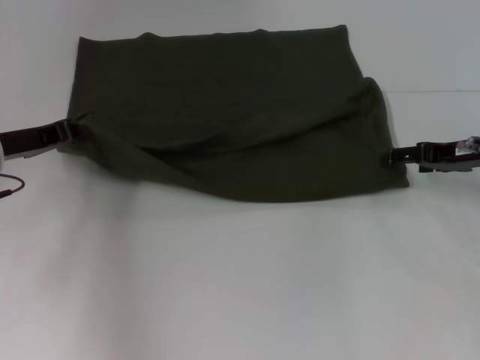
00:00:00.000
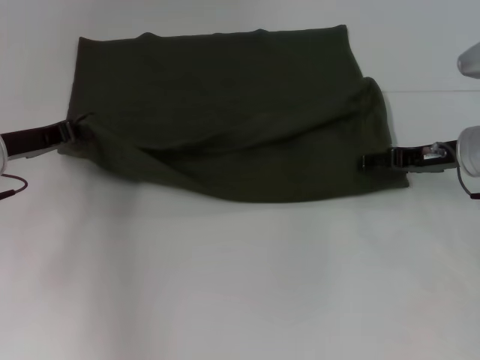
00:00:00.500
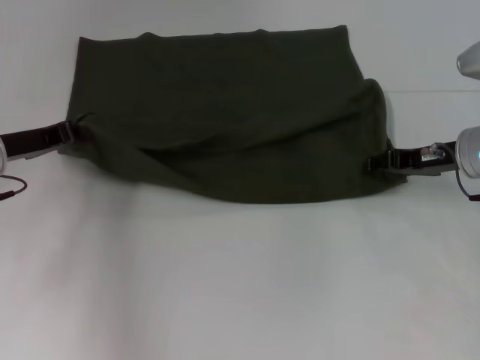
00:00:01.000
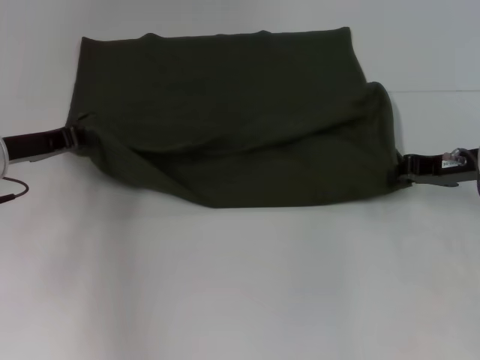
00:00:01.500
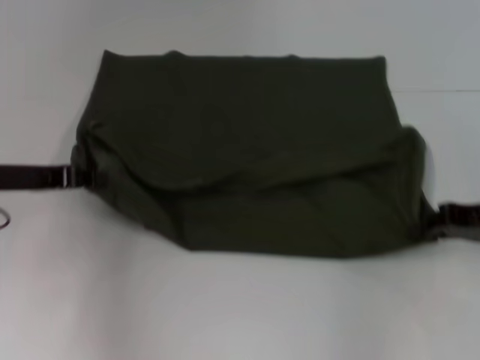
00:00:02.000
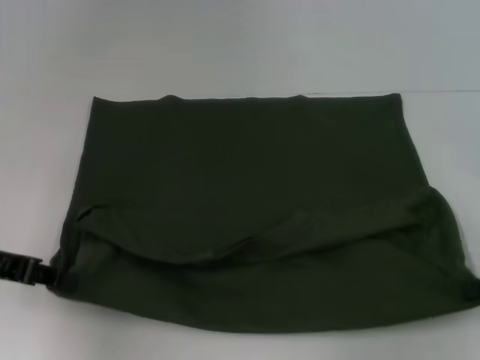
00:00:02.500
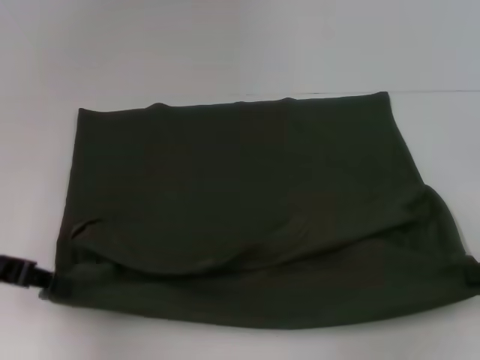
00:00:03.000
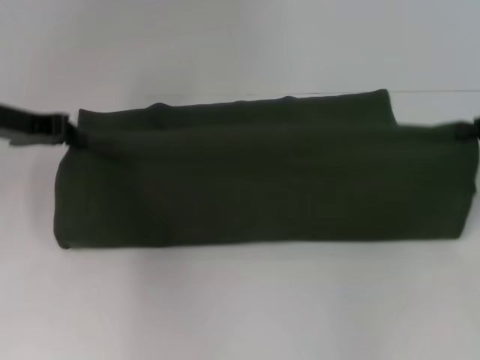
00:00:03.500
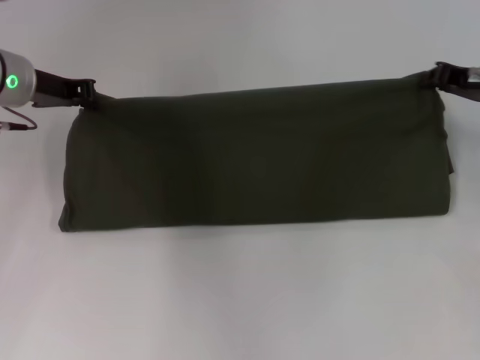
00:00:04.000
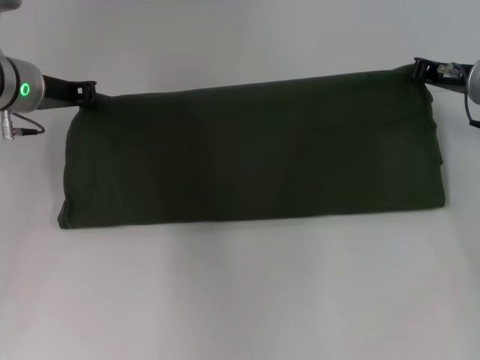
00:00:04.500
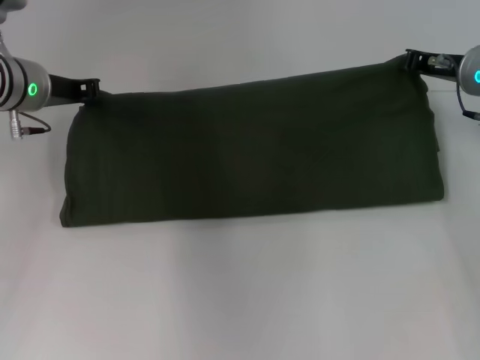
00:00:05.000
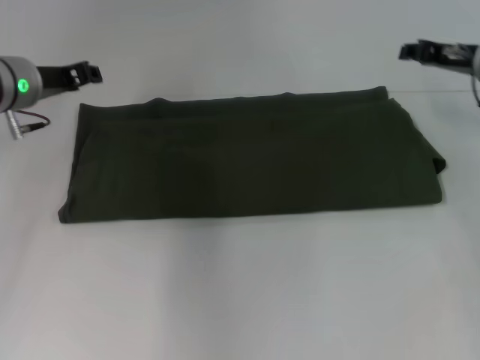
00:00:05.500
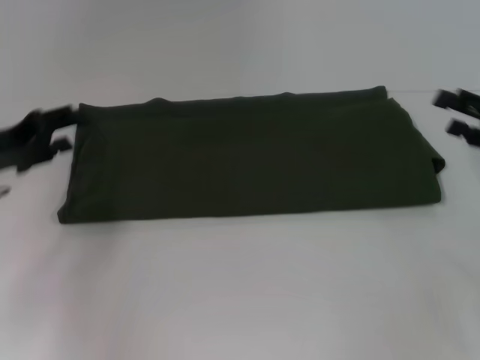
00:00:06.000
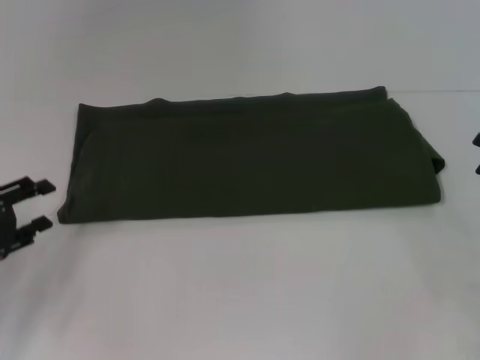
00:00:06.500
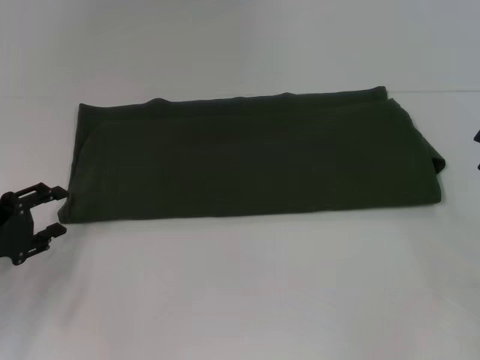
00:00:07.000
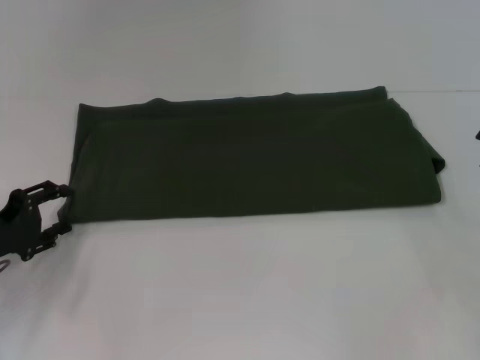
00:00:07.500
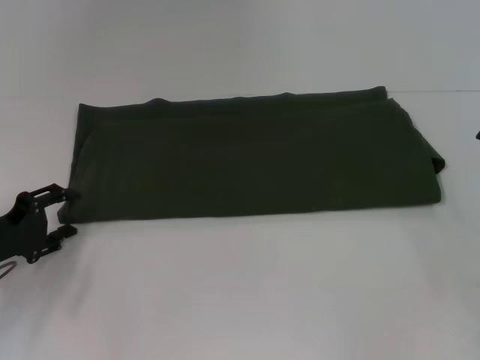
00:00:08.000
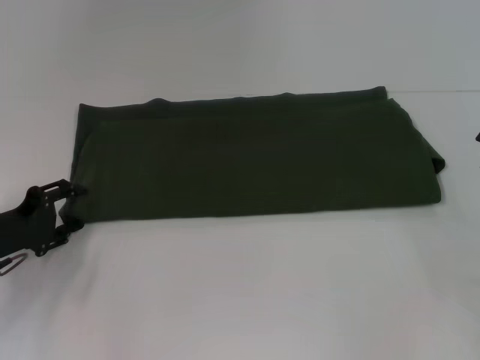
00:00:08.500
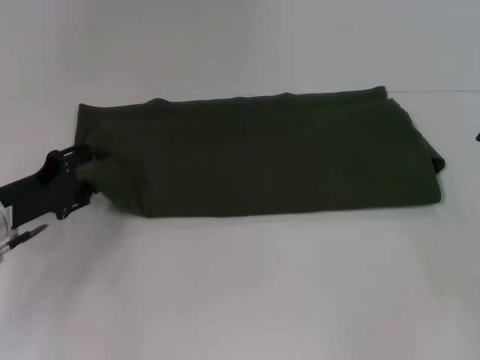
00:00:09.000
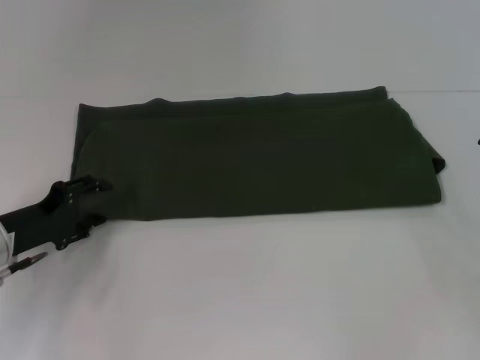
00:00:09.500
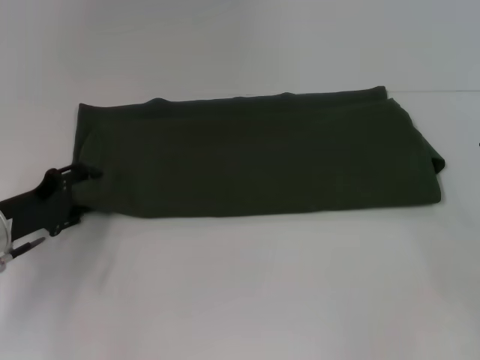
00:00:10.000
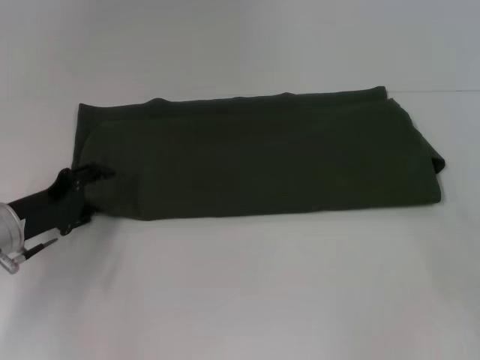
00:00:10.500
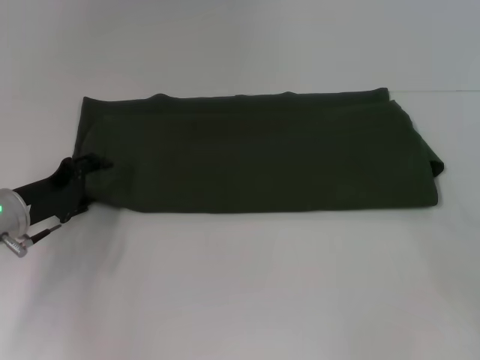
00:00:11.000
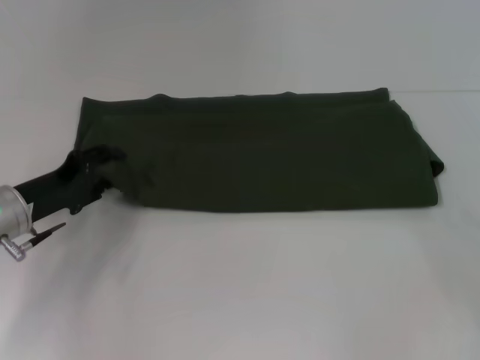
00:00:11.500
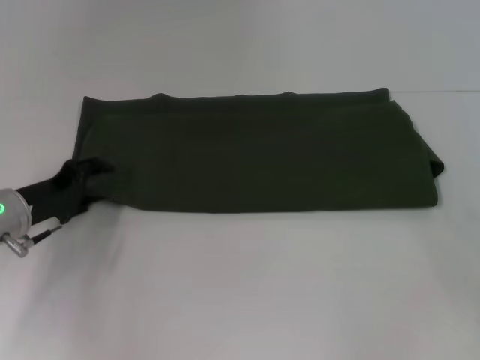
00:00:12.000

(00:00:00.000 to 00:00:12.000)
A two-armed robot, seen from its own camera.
Step, 00:00:00.000 - 00:00:02.500: Pull the clothes with your left hand.
Step, 00:00:00.000 - 00:00:02.500: Pull the clothes with your right hand.
Step, 00:00:03.000 - 00:00:05.000: Fold the clothes with your right hand.
00:00:00.000 - 00:00:02.000: The right gripper travels backward by some 5 cm, and closes its fingers.
00:00:02.000 - 00:00:04.000: The grippers both shift forward by approximately 10 cm.
00:00:04.000 - 00:00:06.000: The right gripper goes approximately 10 cm backward and to the right, and opens up. The left gripper is displaced backward, to the left and downward by approximately 15 cm, and opens its fingers.
00:00:06.000 - 00:00:08.000: The right gripper ends up about 5 cm from where it was; the left gripper shifts some 10 cm downward.
00:00:08.000 - 00:00:10.000: The grippers stay close to where they were, moving slightly.
00:00:10.000 - 00:00:12.000: The grippers stay close to where they were, moving slightly.

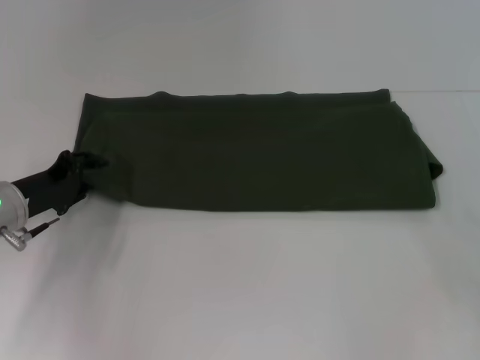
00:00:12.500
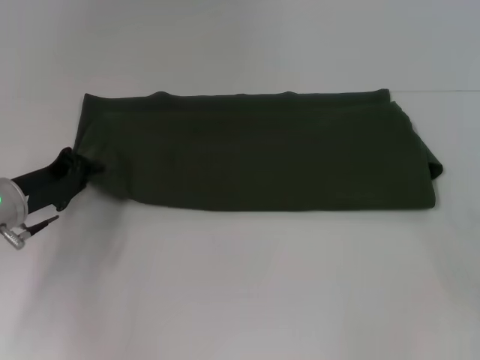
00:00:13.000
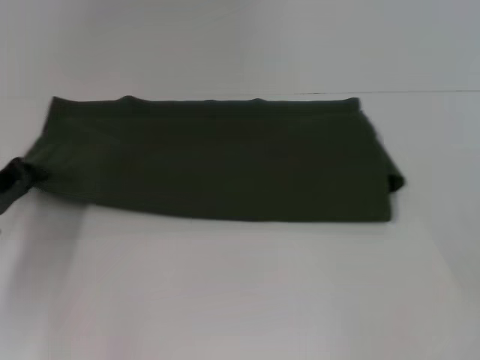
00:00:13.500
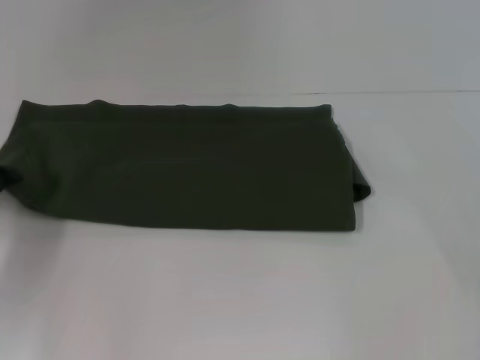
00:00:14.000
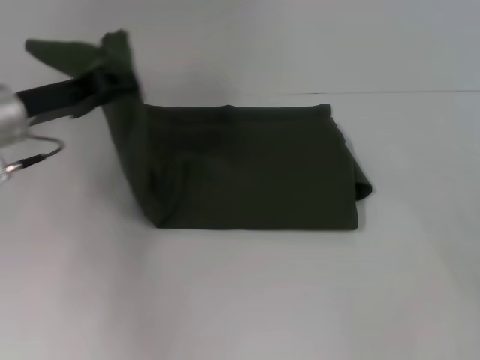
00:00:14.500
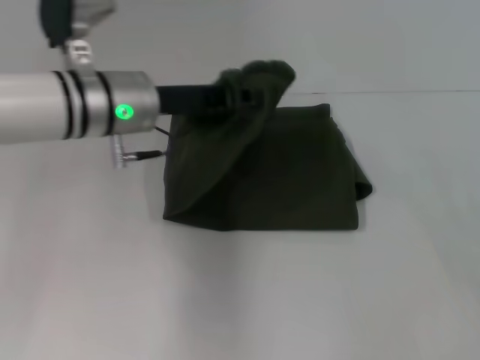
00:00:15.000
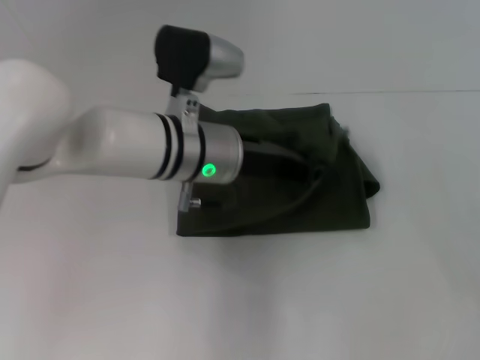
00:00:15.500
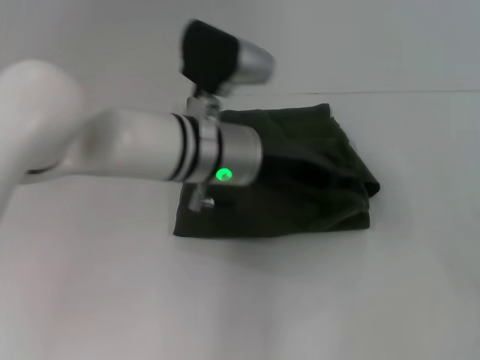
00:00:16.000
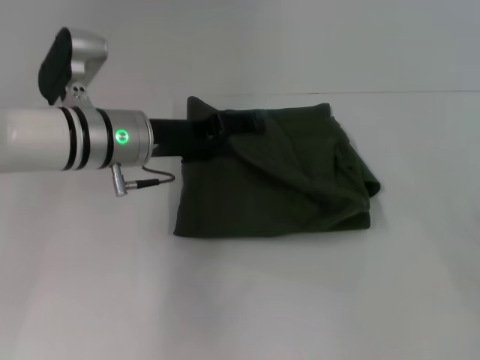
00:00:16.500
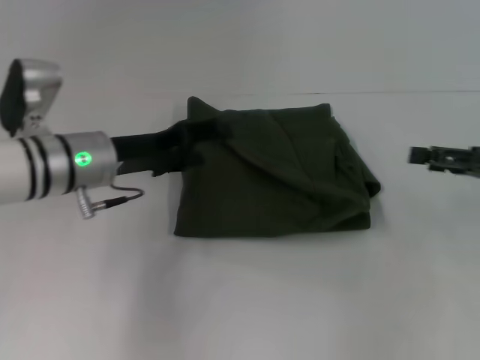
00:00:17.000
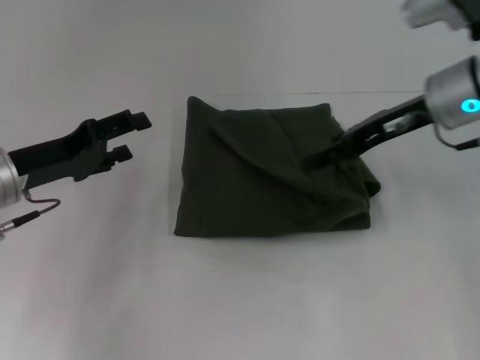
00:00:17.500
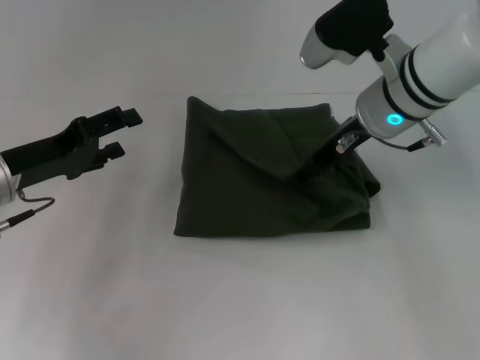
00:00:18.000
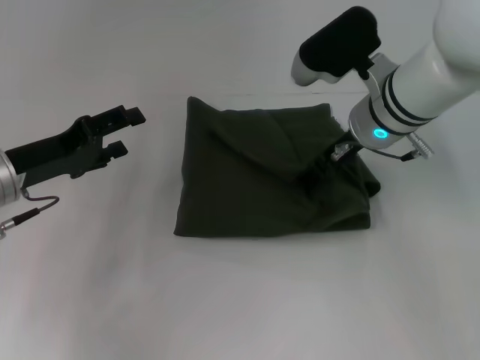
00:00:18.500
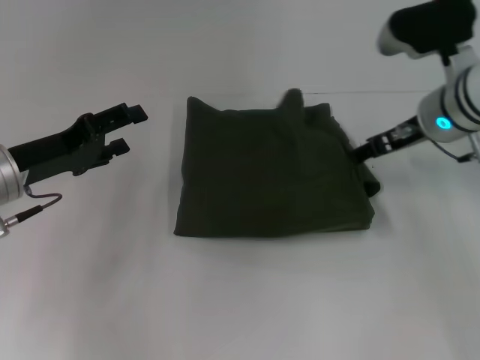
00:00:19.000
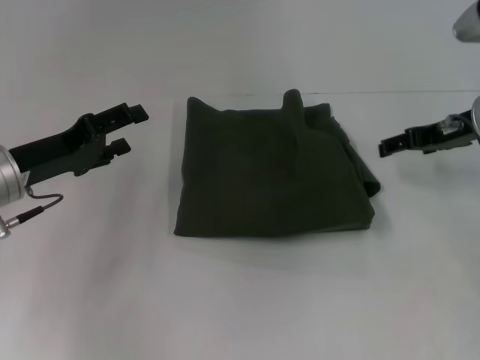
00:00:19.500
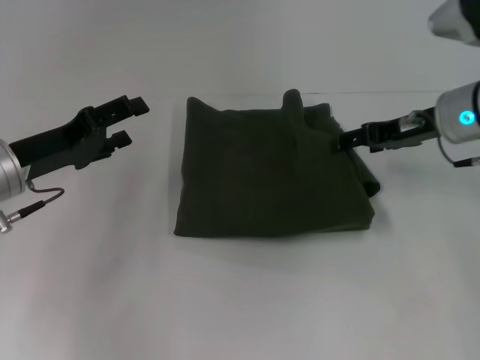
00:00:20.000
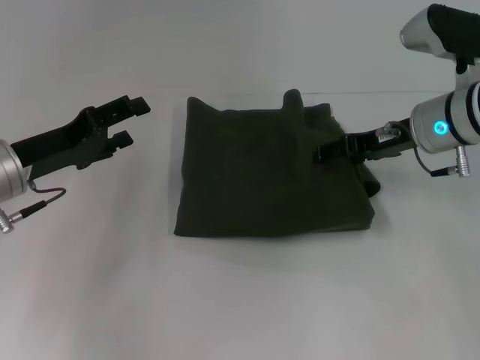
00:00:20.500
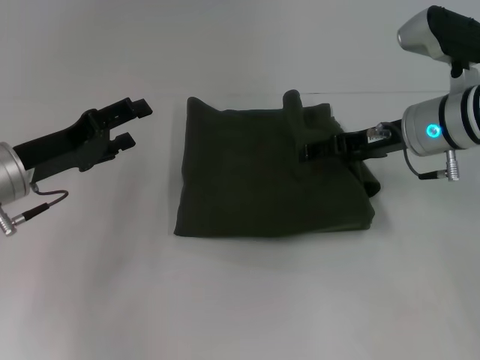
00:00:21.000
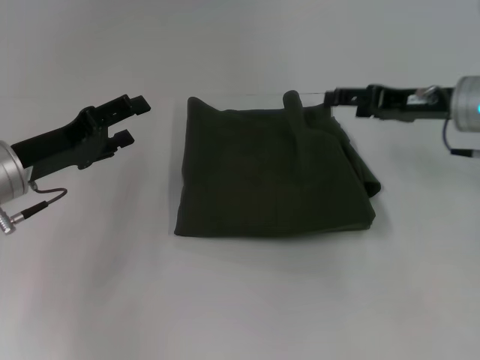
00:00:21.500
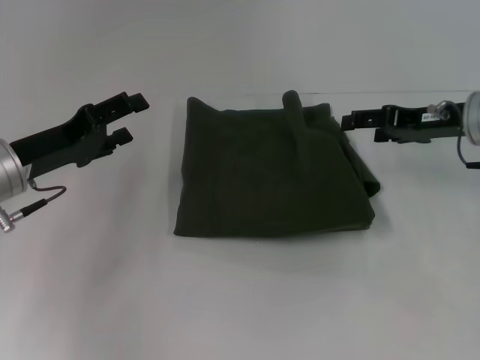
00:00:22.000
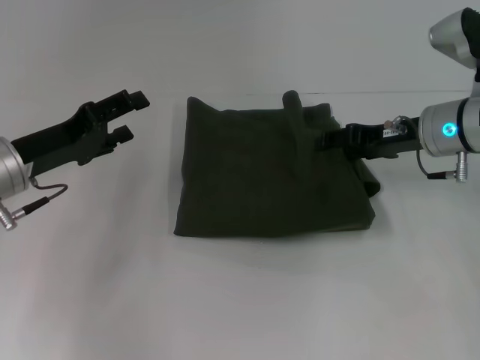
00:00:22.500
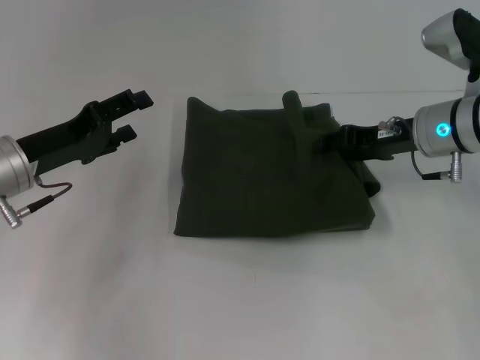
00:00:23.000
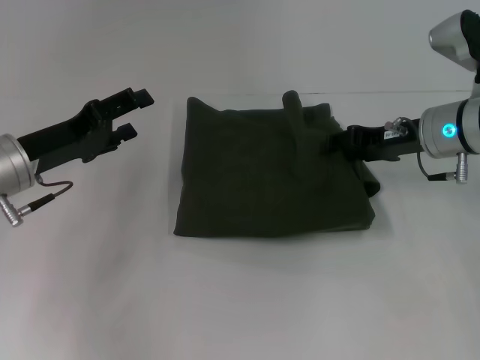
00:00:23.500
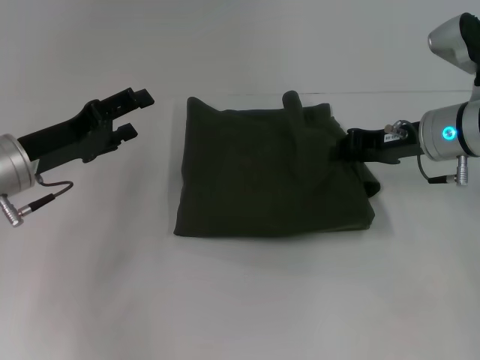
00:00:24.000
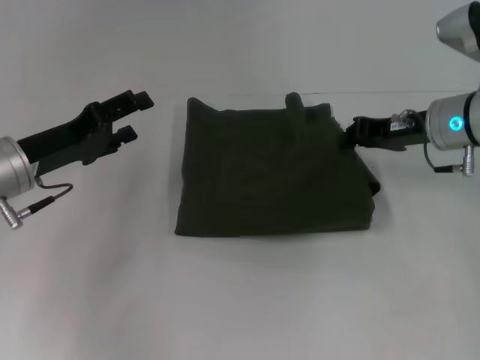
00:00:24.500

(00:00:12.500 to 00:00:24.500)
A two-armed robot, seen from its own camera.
Step, 00:00:12.500 - 00:00:16.000: Fold the clothes with your left hand.
00:00:12.500 - 00:00:14.500: The left gripper heads upward, covering about 10 cm, and closes.
00:00:14.500 - 00:00:16.500: The left gripper goes approximately 10 cm to the right, and opens its fingers.
00:00:16.500 - 00:00:18.500: The left gripper goes about 15 cm to the left and backward. Meanwhile the right gripper heads to the left and forward, covering approximately 30 cm.
00:00:18.500 - 00:00:20.500: The right gripper travels to the right by approximately 10 cm.
00:00:22.500 - 00:00:24.500: The right gripper closes its fingers.

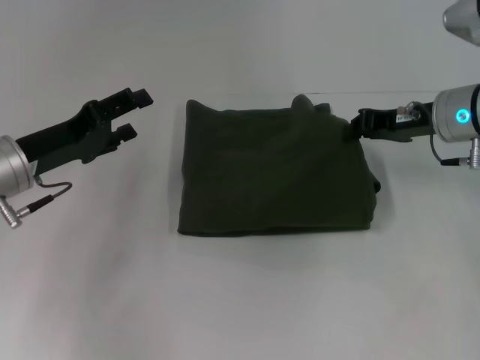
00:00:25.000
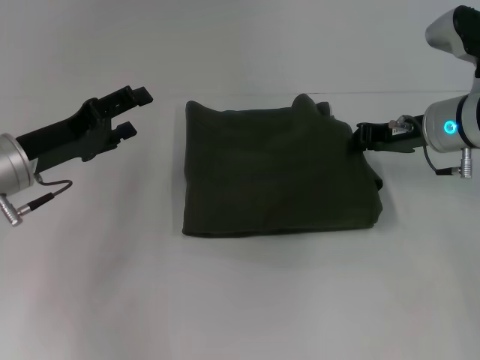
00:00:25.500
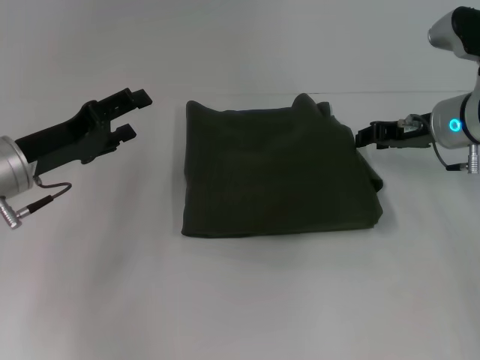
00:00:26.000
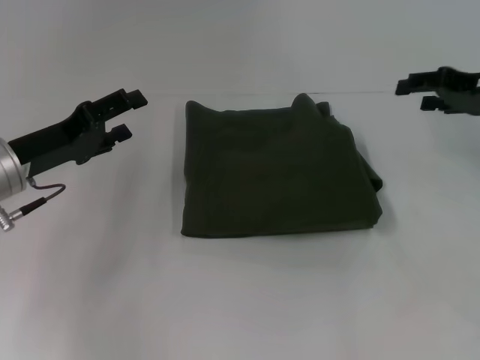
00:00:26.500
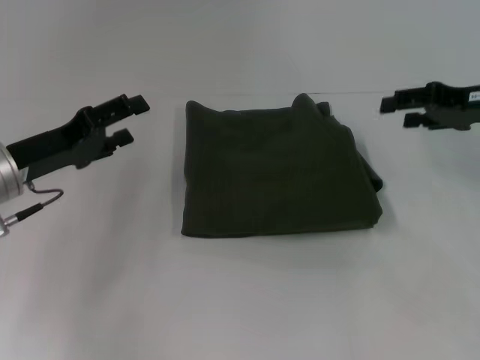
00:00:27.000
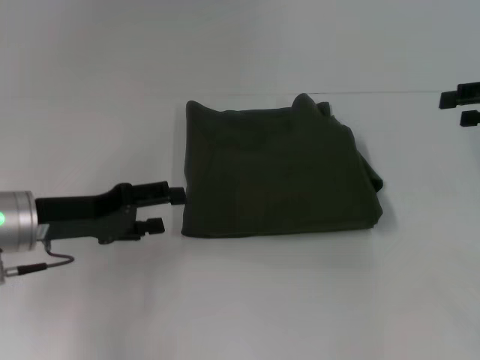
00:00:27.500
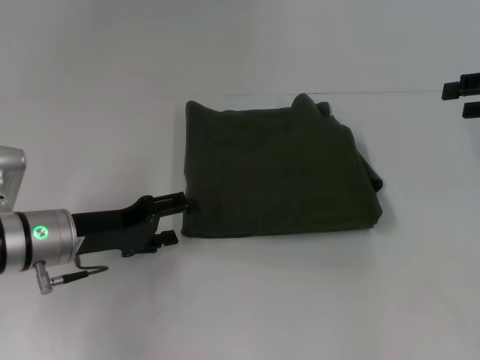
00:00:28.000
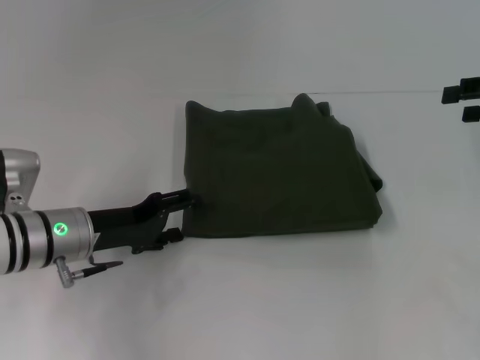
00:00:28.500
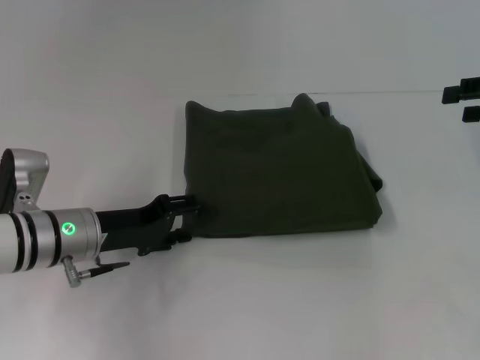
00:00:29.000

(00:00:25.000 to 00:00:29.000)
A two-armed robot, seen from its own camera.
00:00:25.000 - 00:00:27.000: The right gripper shifts roughly 5 cm to the right, and opens.
00:00:27.000 - 00:00:29.000: The right gripper goes approximately 5 cm to the right. Meanwhile the left gripper heads downward and to the right, covering roughly 10 cm.
